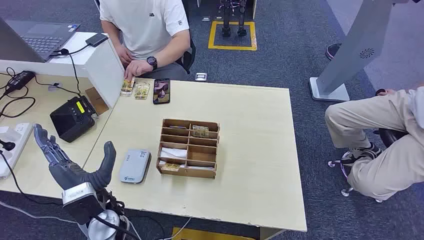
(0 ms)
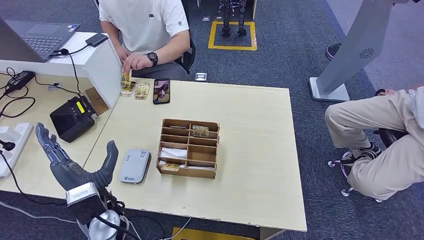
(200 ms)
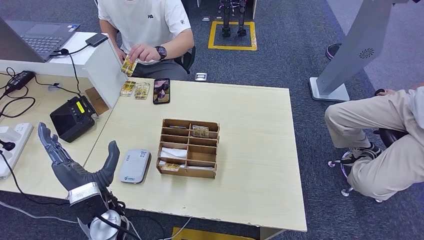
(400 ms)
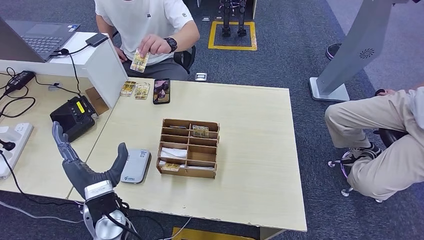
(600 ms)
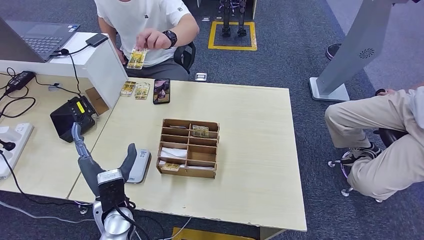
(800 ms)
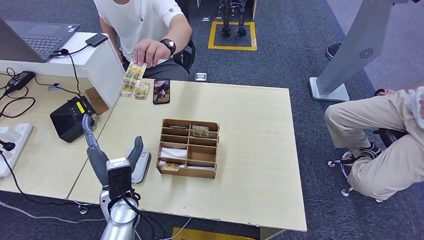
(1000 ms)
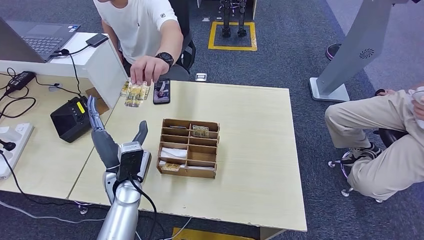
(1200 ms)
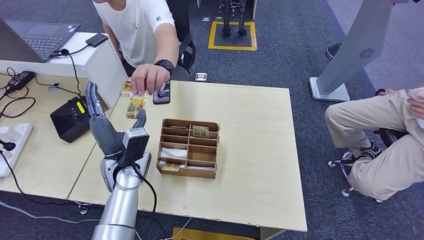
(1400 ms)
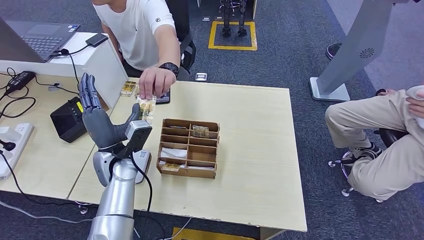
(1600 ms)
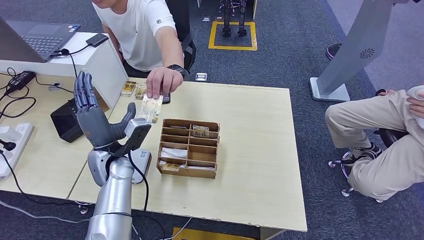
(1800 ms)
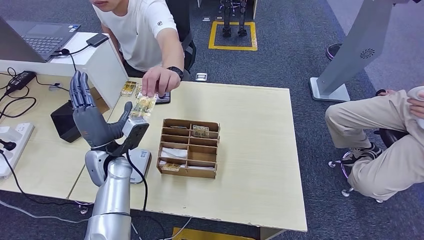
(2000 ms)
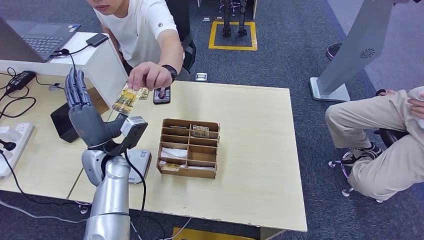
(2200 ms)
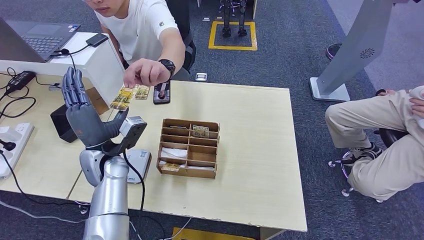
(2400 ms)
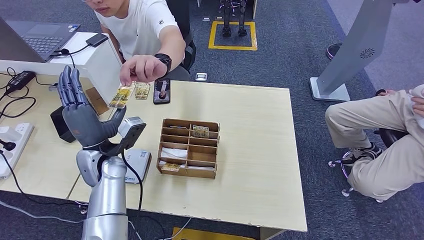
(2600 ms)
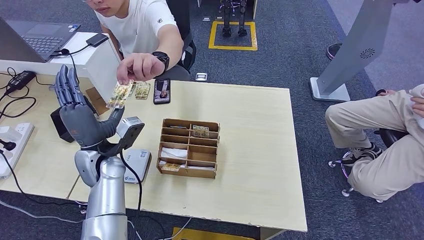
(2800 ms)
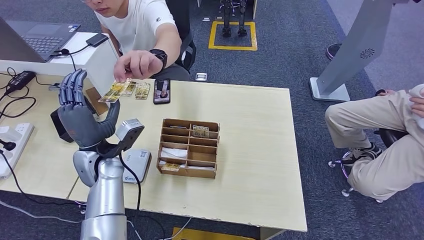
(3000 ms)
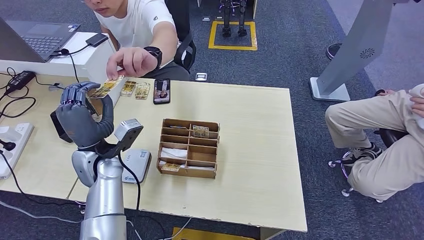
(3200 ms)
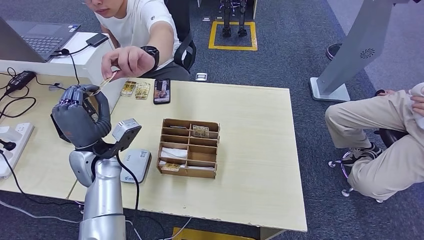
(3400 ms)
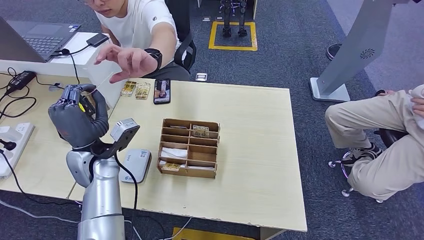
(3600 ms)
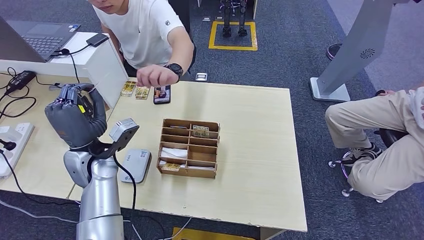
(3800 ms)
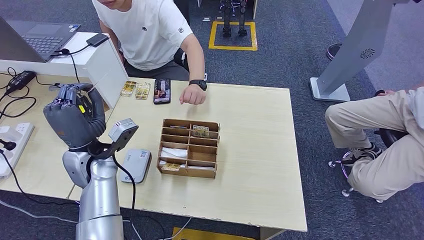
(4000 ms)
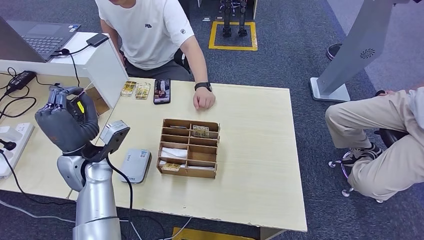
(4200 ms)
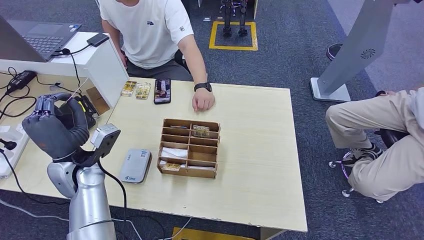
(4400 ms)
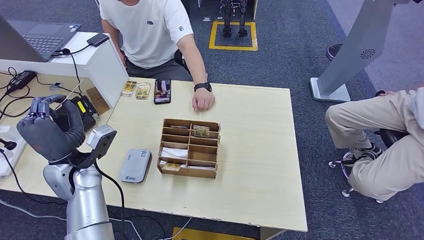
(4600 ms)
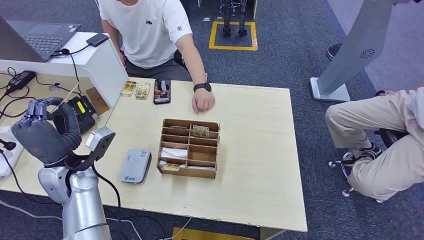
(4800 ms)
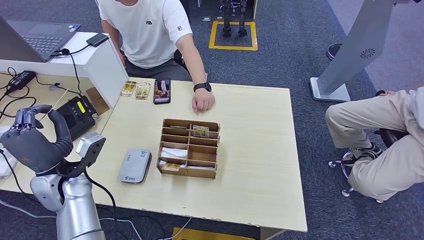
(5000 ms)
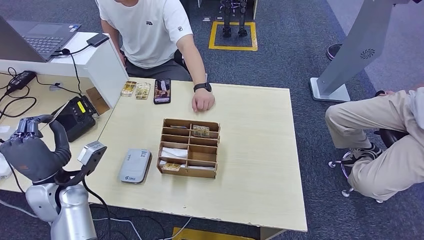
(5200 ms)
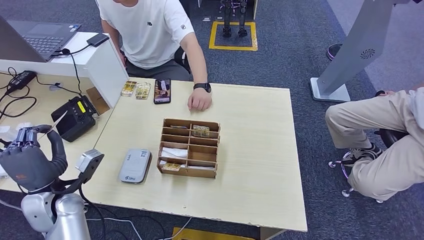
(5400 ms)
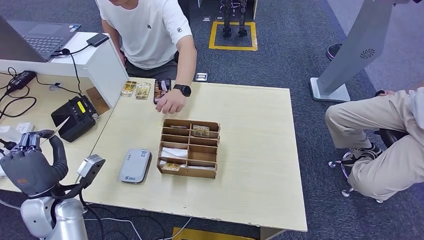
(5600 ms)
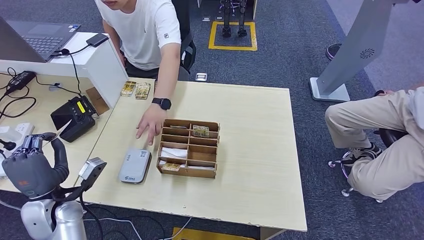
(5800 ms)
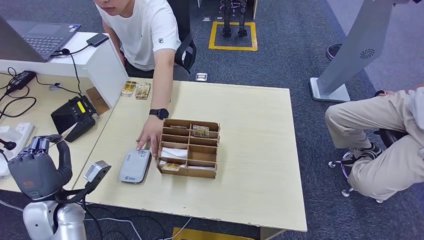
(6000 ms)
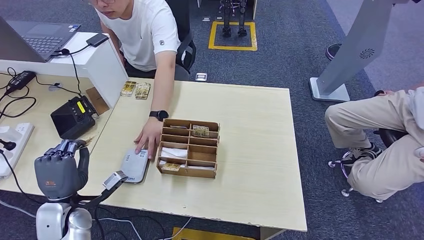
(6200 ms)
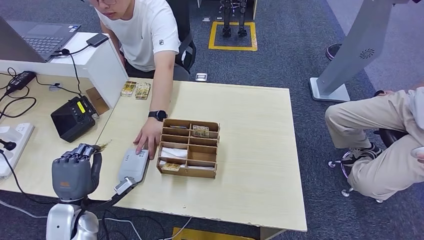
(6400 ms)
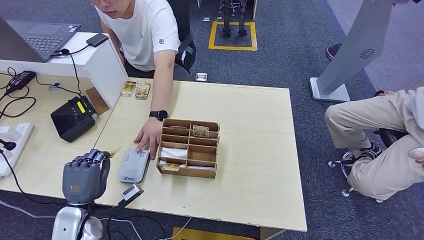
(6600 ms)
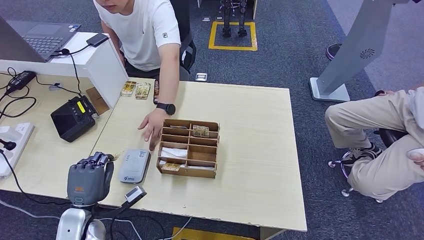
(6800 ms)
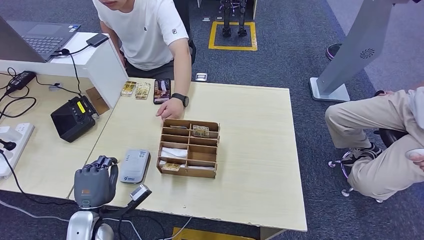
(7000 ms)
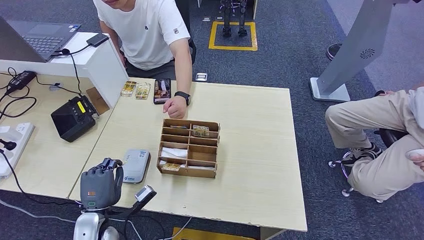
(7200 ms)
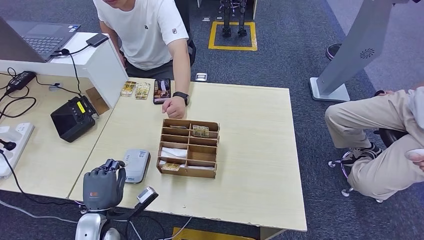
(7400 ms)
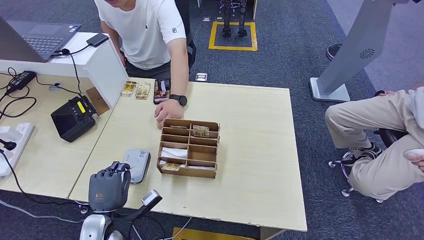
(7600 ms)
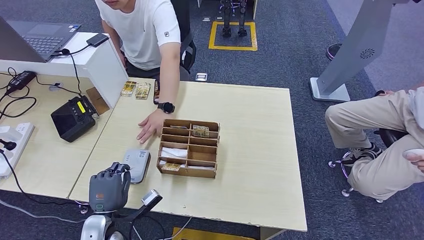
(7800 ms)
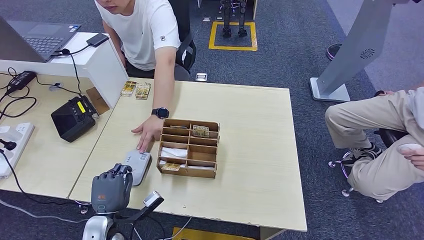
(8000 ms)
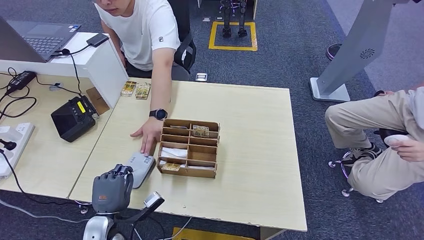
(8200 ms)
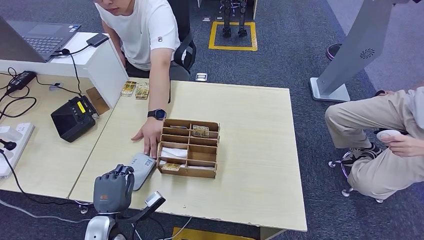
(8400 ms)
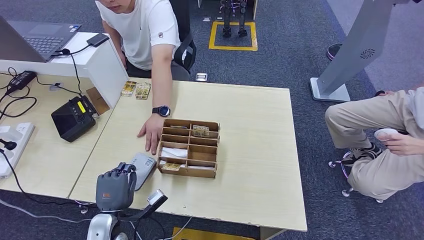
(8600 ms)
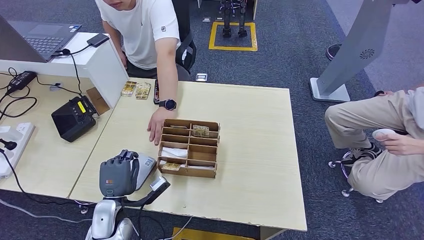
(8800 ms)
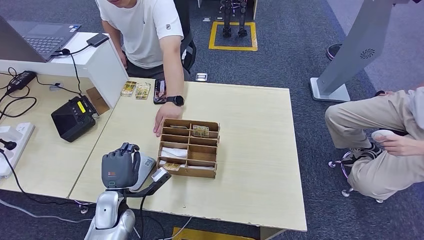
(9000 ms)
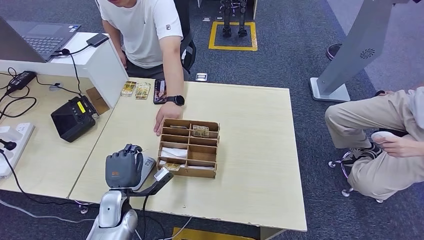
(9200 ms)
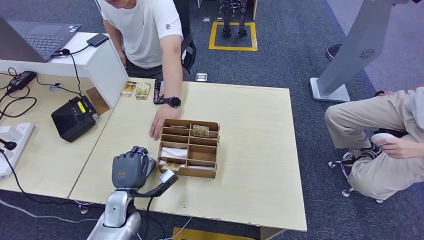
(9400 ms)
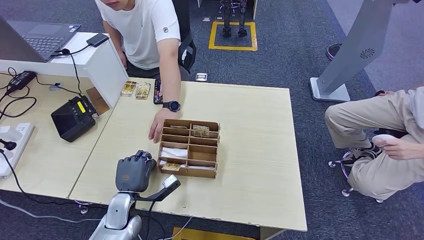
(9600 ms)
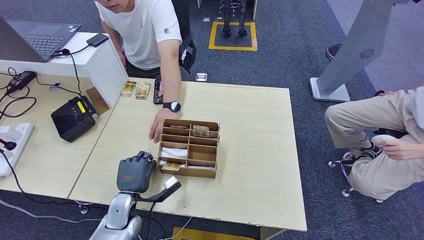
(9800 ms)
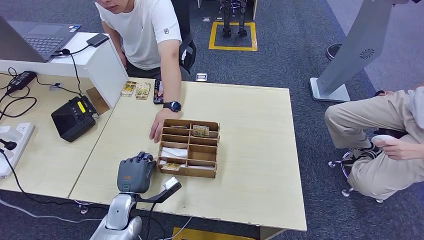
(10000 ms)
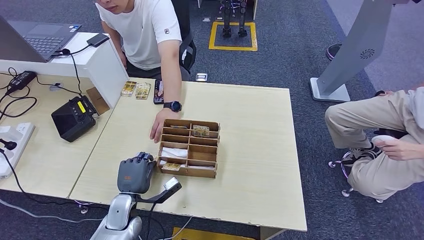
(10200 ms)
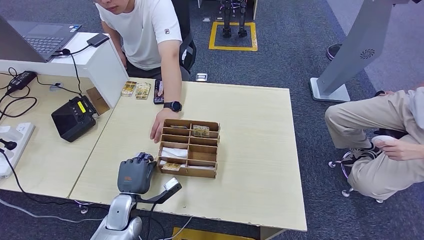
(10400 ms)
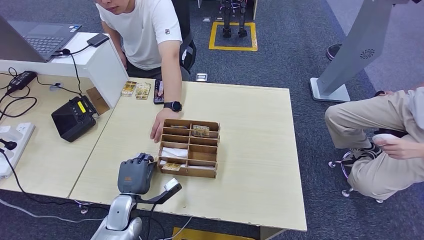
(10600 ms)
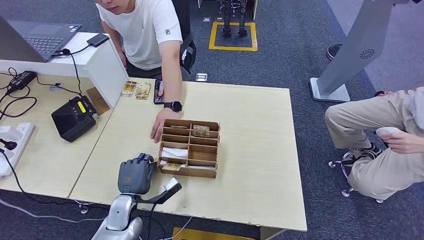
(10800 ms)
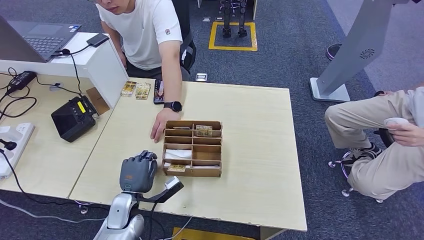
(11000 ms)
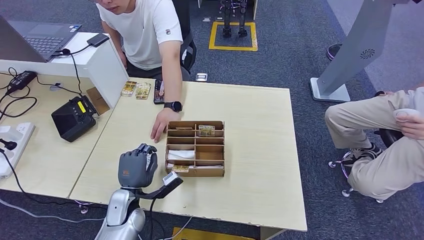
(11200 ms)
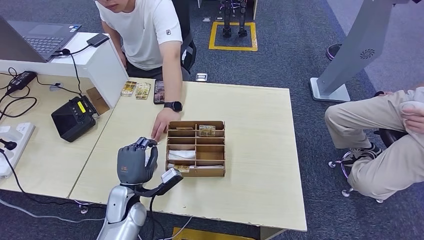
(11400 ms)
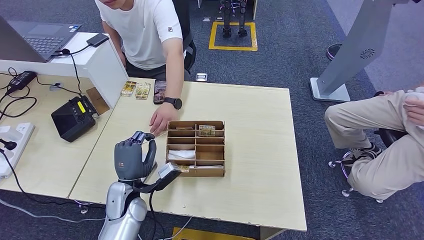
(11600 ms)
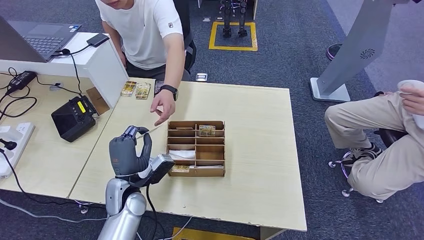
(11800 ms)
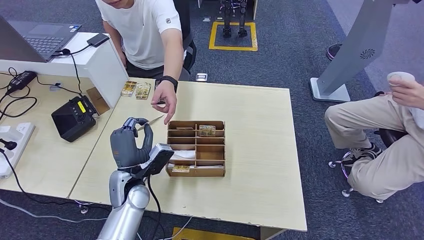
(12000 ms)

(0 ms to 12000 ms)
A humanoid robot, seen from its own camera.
Step, 0 ms - 3600 ms: Take the ID card from the person's hand.
Step, 4200 ms - 8800 ms: Place the ID card on the card reader.
1600 ms - 3000 ms: The hands stay close to where they were, moving slightly.
3000 ms - 4400 ms: The hands make only small movements.
4400 ms - 6000 ms: The left hand goes roughly 10 cm backward and downward.
6000 ms - 7600 ms: The left hand moves to the right and downward, roughly 10 cm.
7600 ms - 9000 ms: The left hand shifts approximately 5 cm forward.
9000 ms - 10400 ms: The hands move only a little.
10400 ms - 12000 ms: The left hand travels upward by some 10 cm.

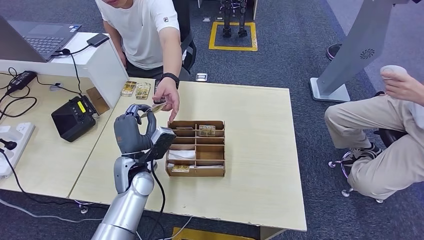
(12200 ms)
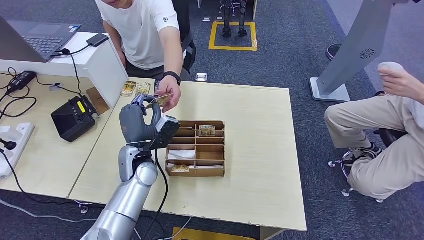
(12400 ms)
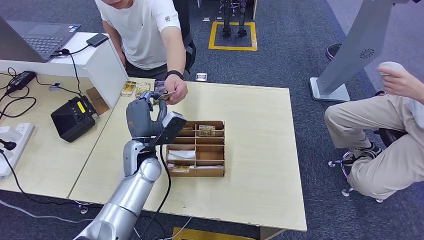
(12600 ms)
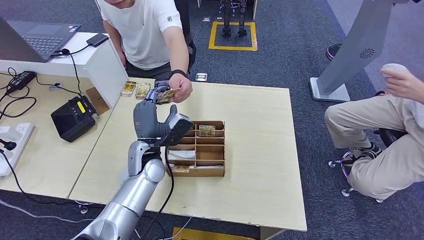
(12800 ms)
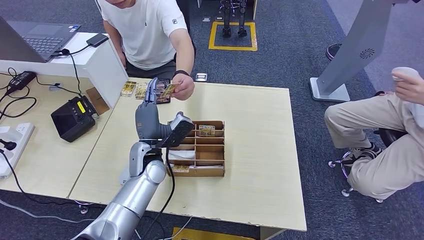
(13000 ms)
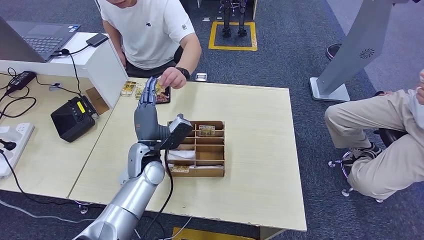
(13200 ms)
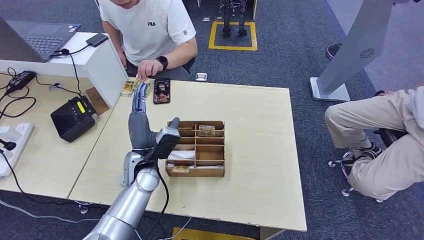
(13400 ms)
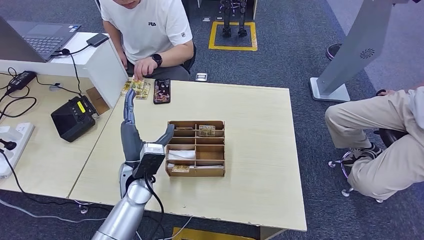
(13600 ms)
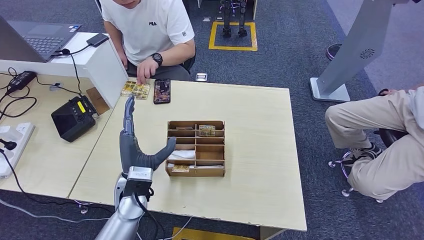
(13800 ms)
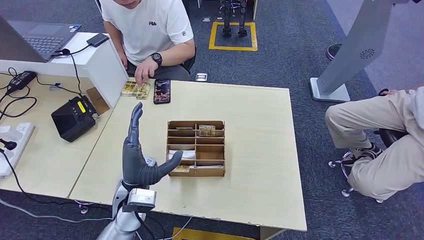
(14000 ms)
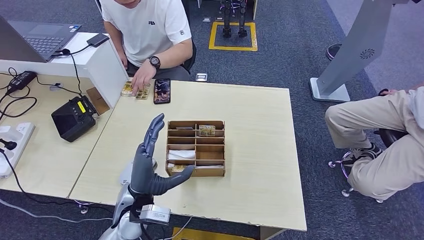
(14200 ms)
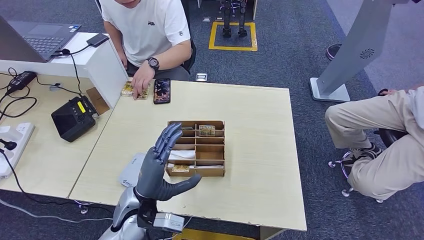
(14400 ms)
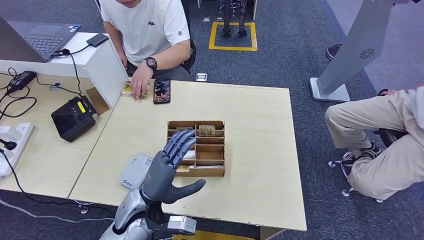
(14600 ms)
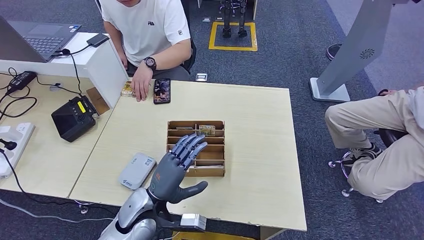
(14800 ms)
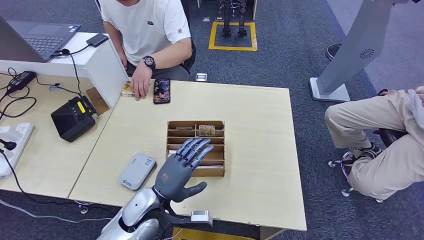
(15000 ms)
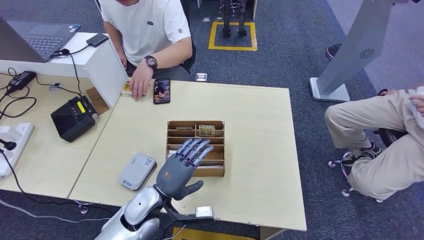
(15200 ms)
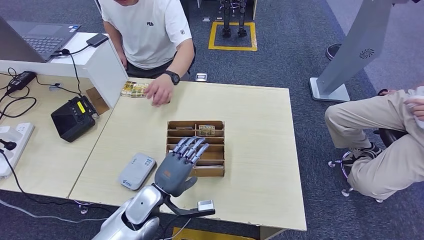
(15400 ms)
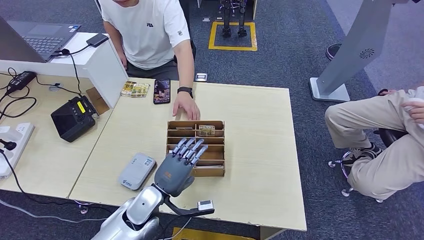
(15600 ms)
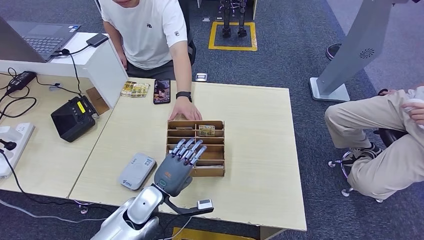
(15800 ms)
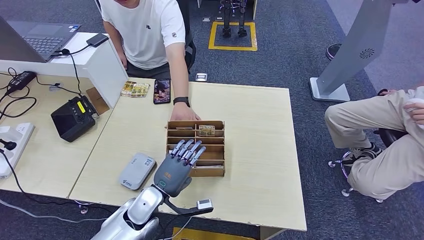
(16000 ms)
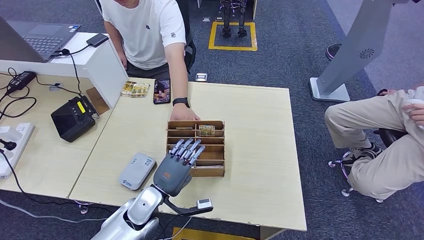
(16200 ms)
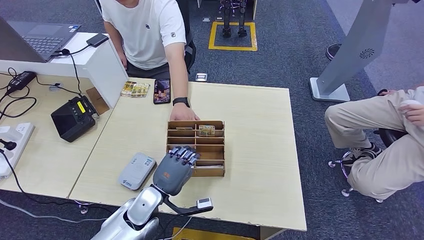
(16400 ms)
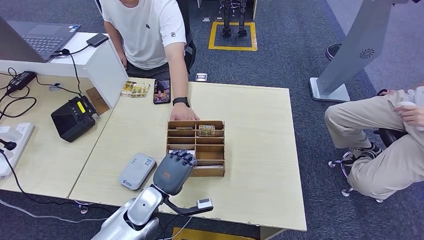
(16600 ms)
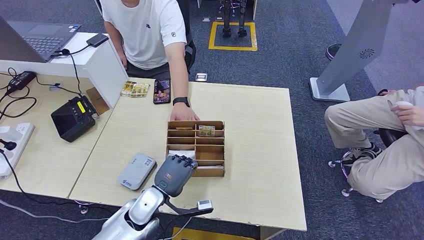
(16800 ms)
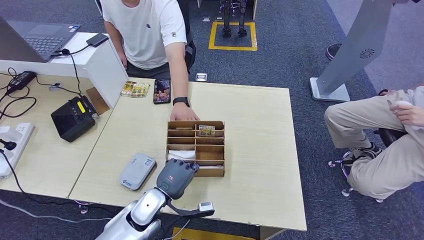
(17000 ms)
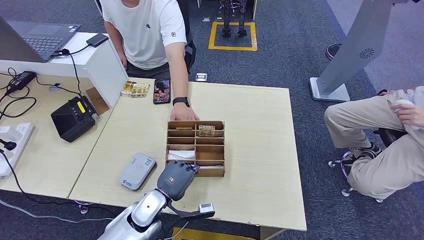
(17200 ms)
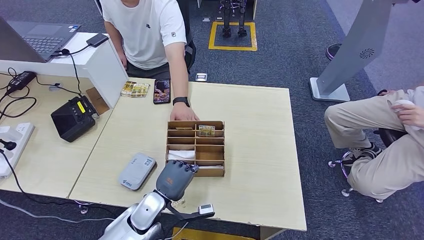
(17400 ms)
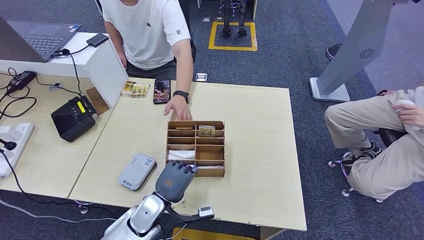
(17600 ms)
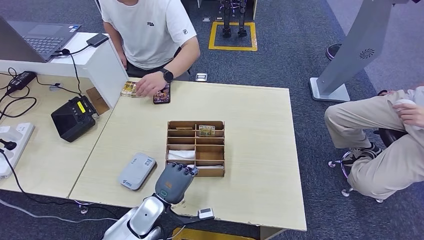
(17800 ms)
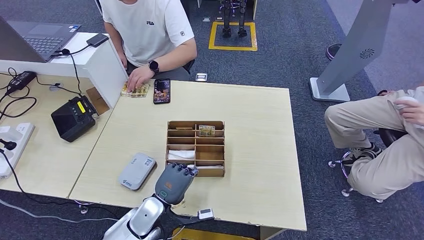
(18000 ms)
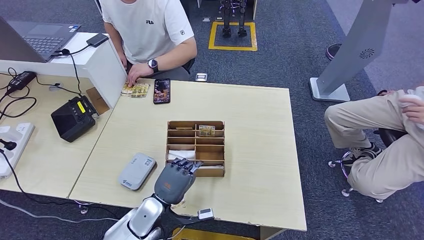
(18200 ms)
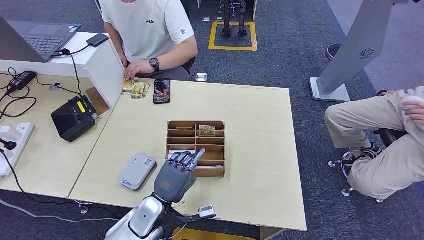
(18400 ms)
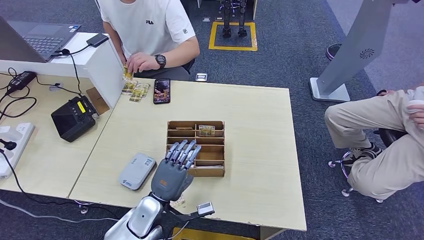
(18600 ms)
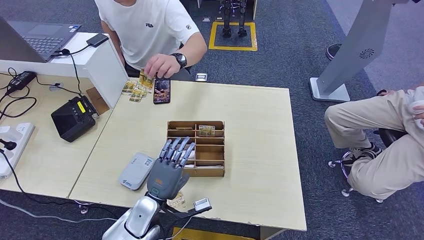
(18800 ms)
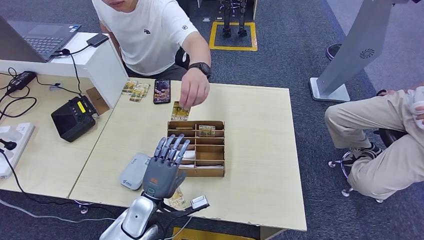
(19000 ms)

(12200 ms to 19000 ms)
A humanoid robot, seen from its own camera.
13600 ms - 15000 ms: The left hand goes approximately 5 cm backward.
16200 ms - 19000 ms: The hands stay close to where they were, moving slightly.
